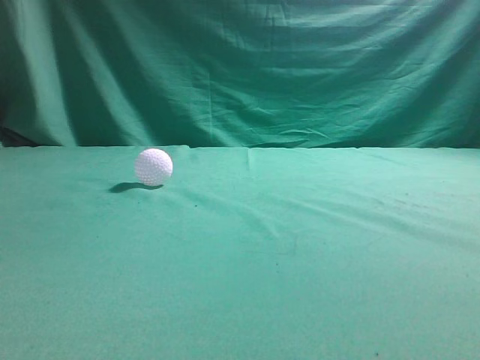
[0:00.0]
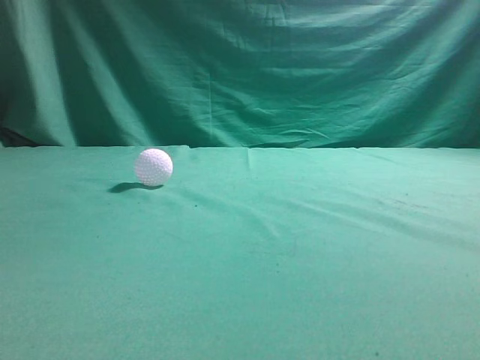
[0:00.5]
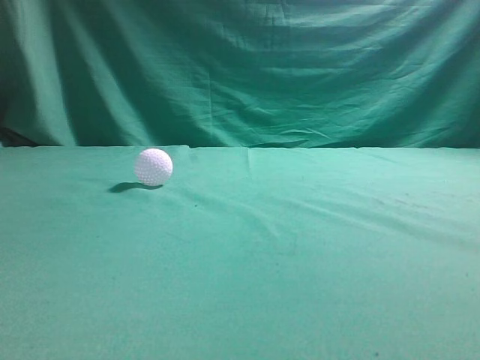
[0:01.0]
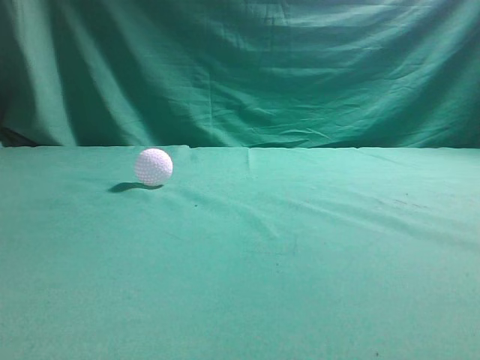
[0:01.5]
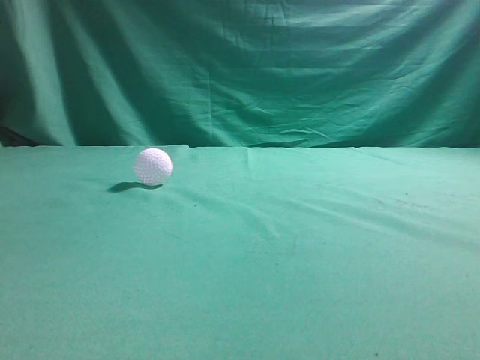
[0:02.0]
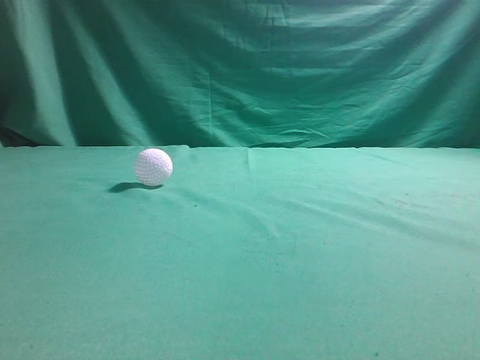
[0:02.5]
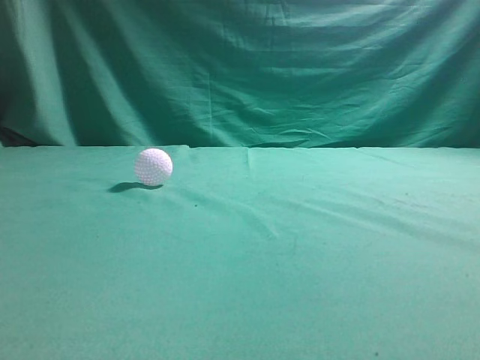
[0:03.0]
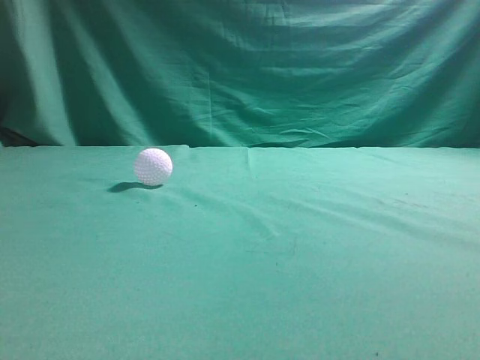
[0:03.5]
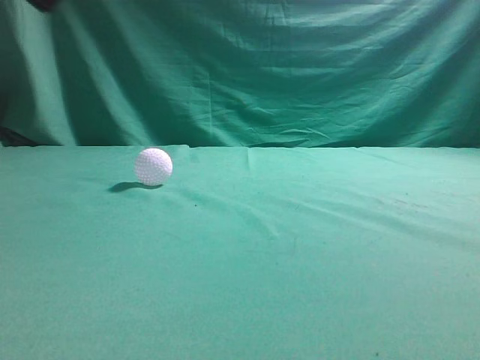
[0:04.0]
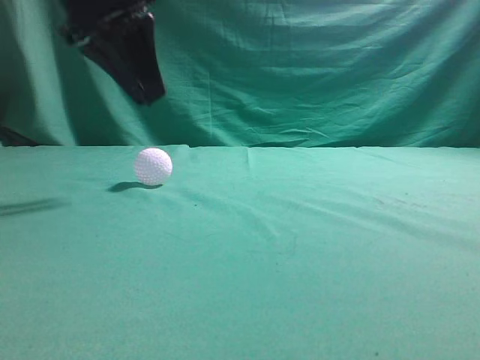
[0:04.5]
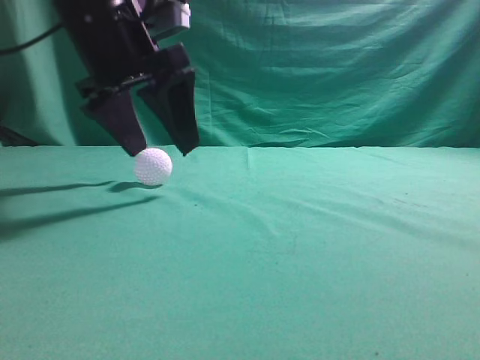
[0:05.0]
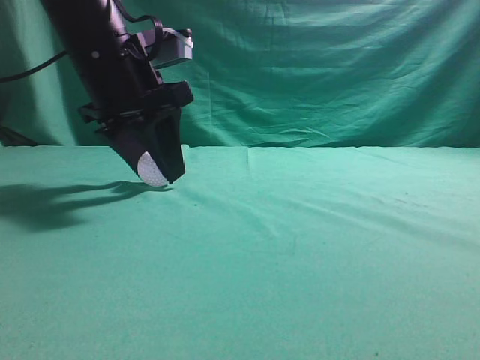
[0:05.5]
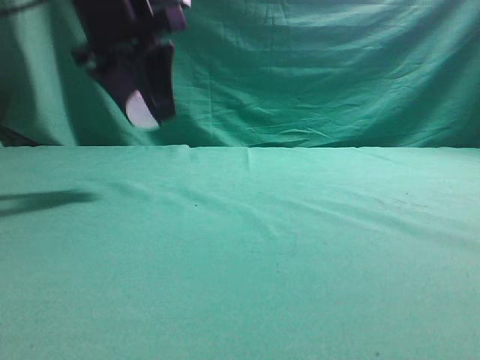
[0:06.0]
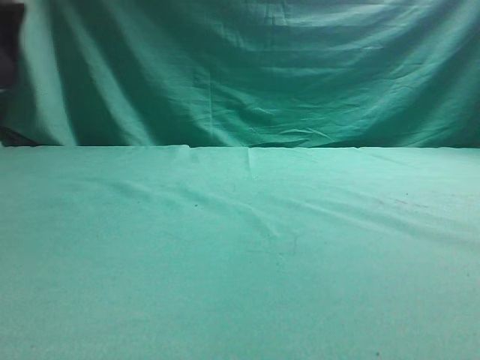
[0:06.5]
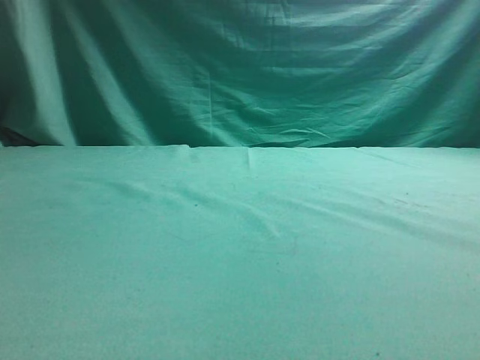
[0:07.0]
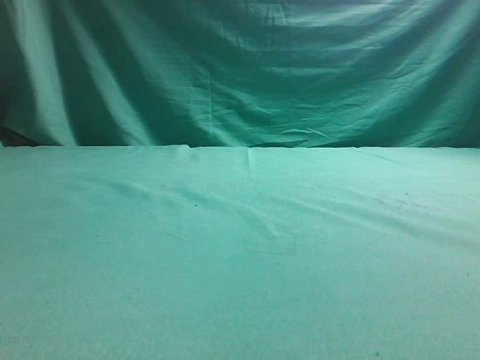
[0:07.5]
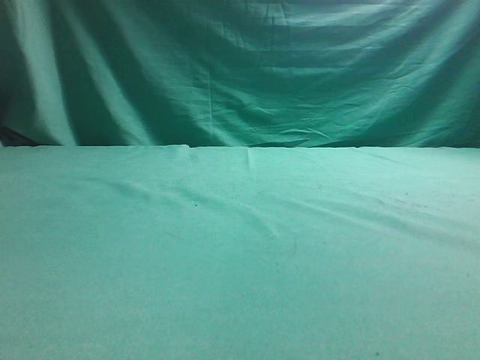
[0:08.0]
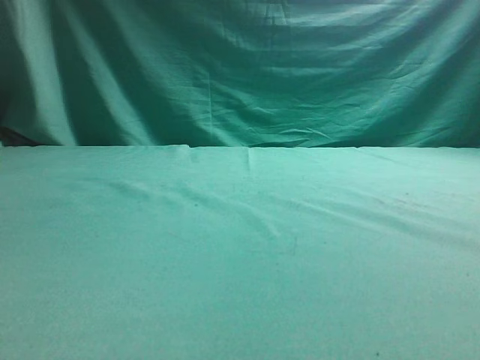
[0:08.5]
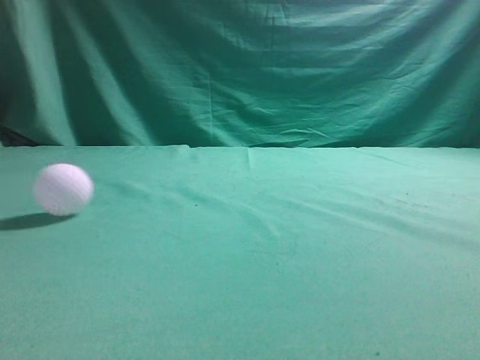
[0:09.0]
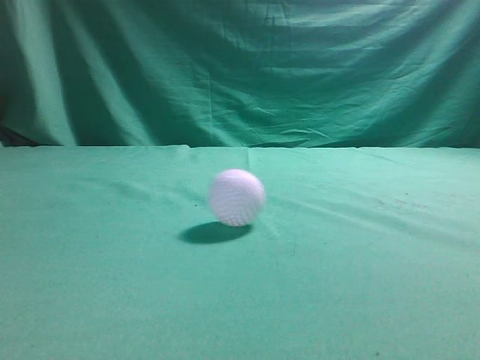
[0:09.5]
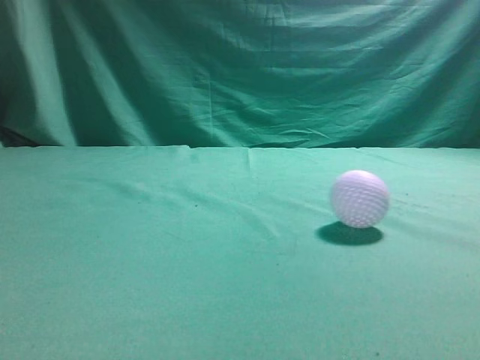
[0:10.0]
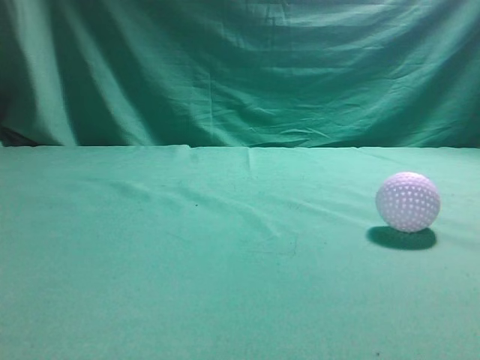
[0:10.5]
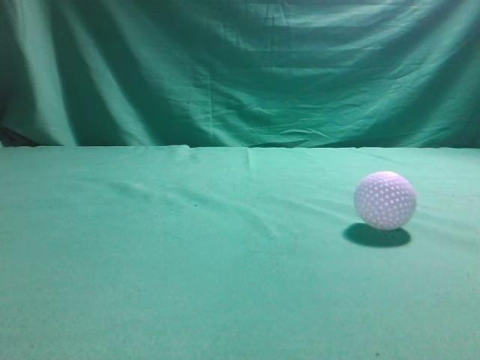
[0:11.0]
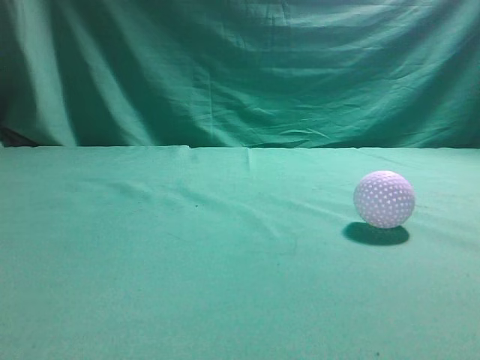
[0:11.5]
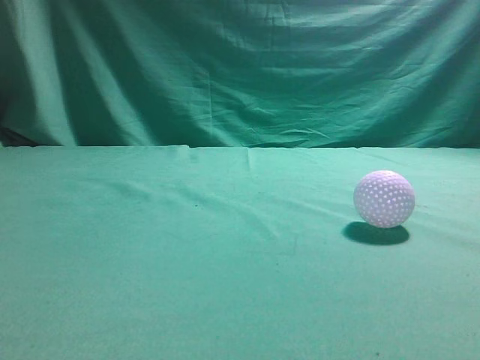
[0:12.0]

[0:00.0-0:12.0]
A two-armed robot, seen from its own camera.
Task of the whole recording: pick up the ball and place it on the plate, then pick up the ball from the plate and put it in the center of the table.
Step, 0:00.0 to 0:05.5: Grab the spherical object with your left arm.
Step, 0:06.0 to 0:08.0: Place the sphere on the white object.
0:04.0 to 0:06.0: The left gripper shifts roughly 15 cm forward, to the right and downward, and opens.
0:06.0 to 0:08.0: The left gripper travels to the left by some 25 cm.
0:10.0 to 0:12.0: The right gripper heads upward and forward, covering about 10 cm.

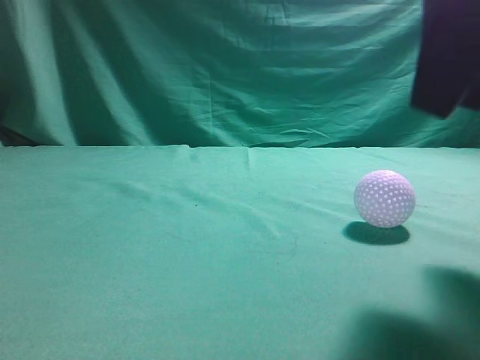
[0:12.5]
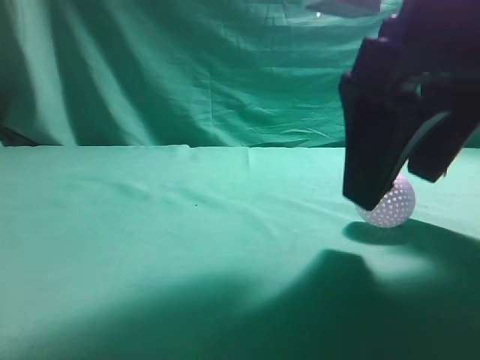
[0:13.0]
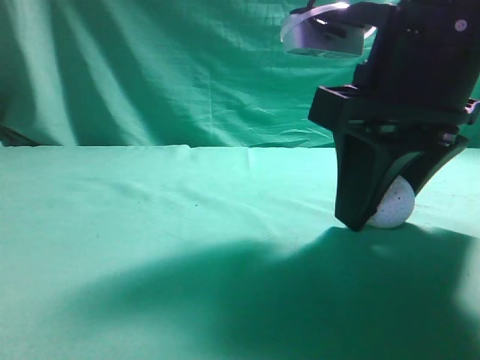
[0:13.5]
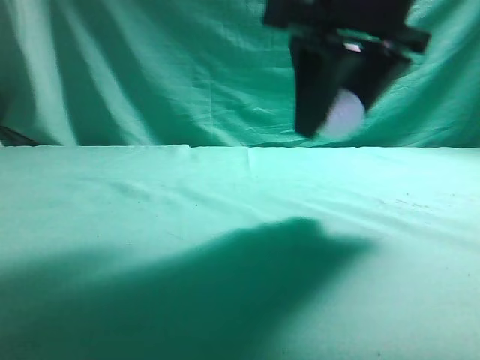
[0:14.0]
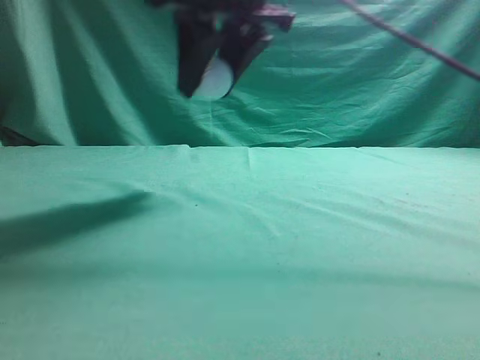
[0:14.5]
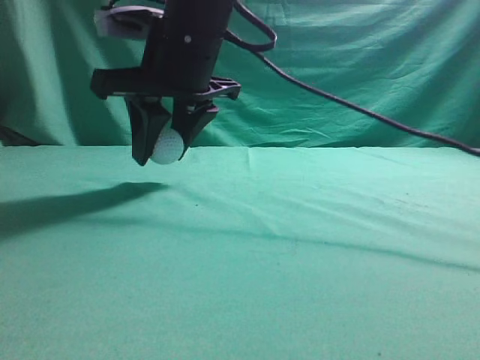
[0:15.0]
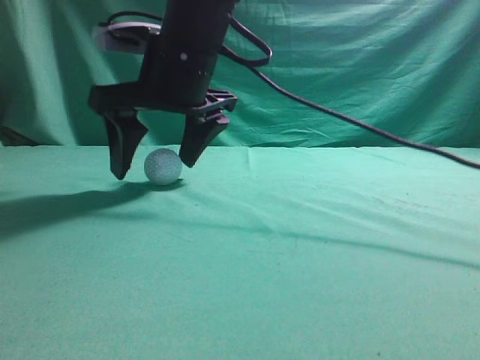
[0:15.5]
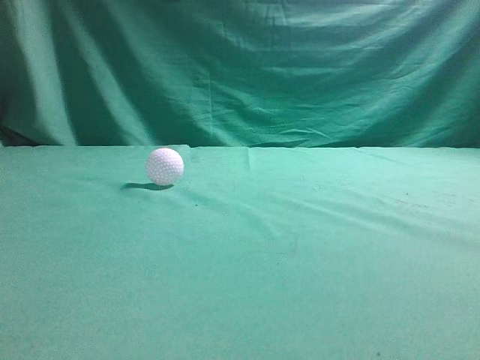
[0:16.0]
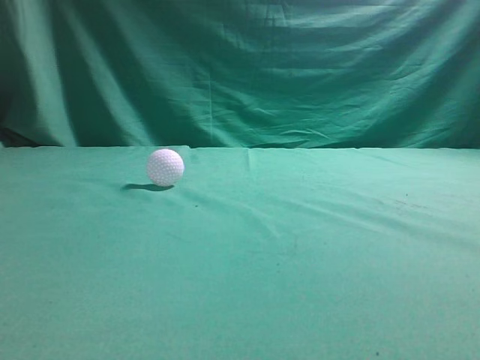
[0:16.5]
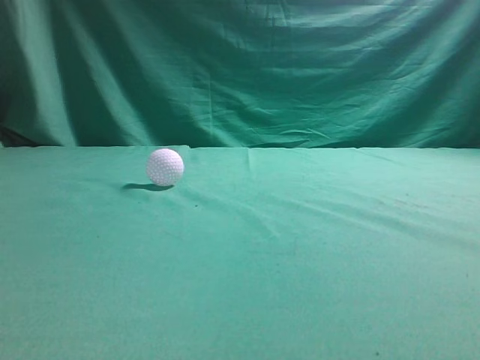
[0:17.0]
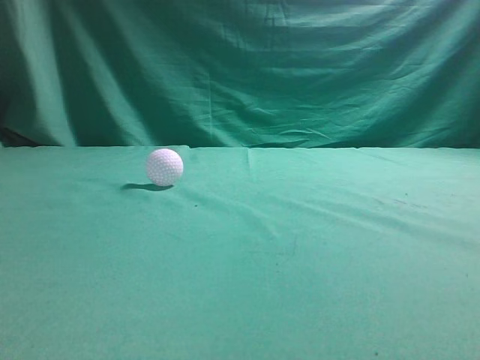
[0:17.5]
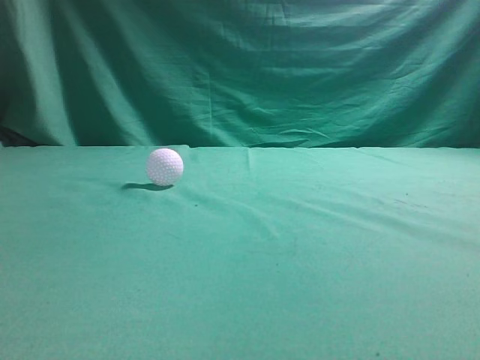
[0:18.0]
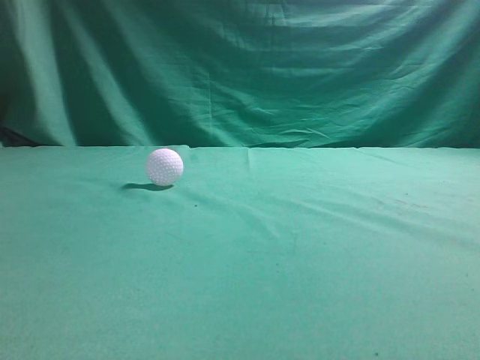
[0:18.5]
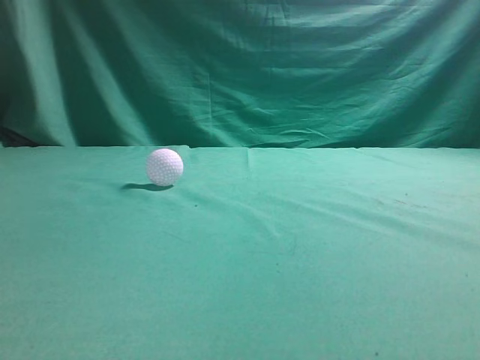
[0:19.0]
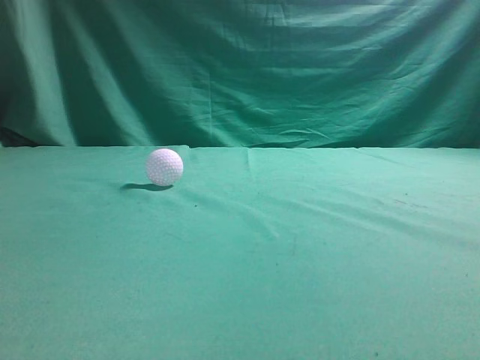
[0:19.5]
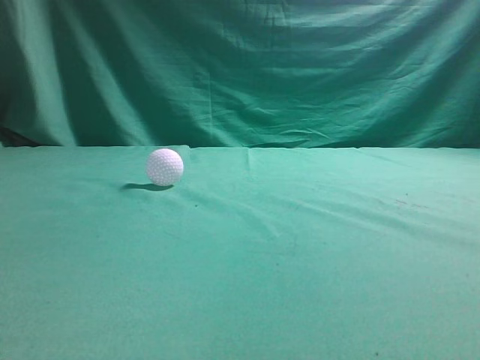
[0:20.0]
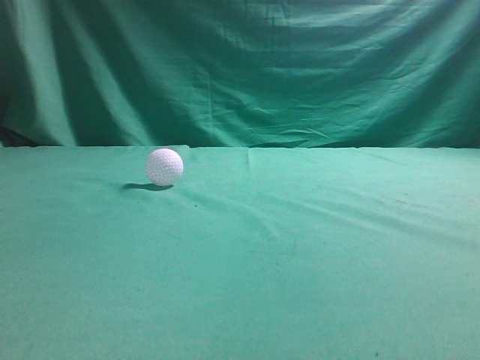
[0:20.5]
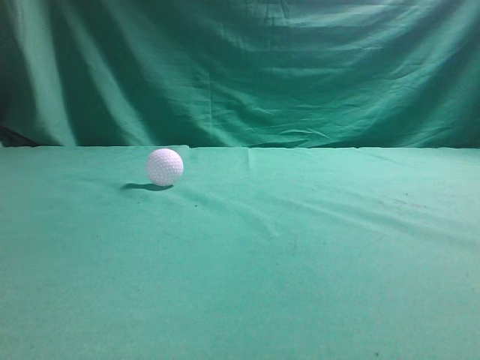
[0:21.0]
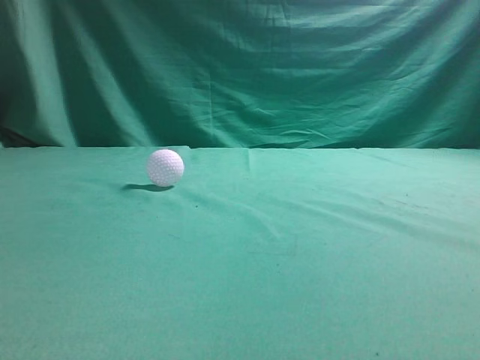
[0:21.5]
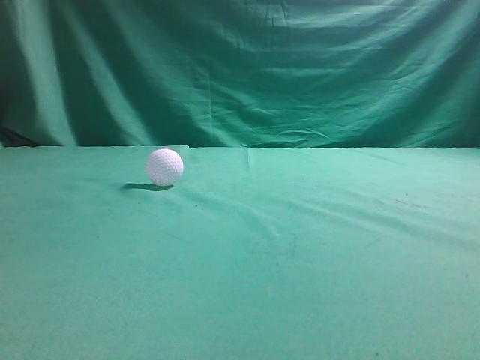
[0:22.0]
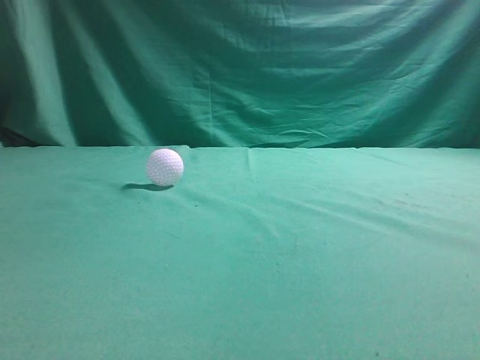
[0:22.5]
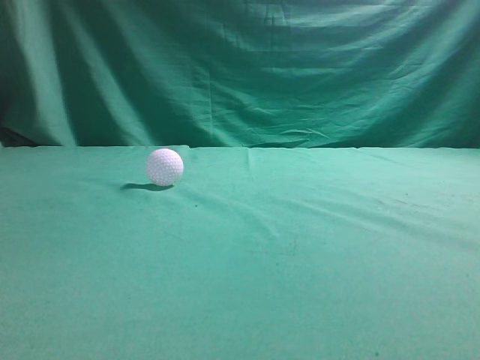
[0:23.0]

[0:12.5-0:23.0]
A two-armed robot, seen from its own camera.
Task of the whole recording: pick up the ball and place it on the plate, then pick up the ball from the plate and put it in the center of the table.
Step, 0:14.0 to 0:15.5: Put the picked-up object on the table.
0:12.5 to 0:14.5: The right gripper shifts roughly 20 cm to the left and forward.
0:14.5 to 0:16.5: The right gripper is displaced upward by about 25 cm, and closes.
